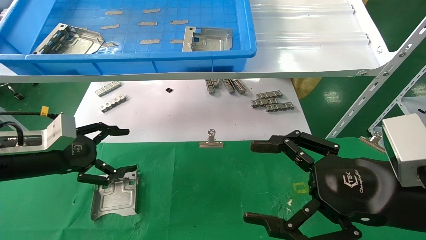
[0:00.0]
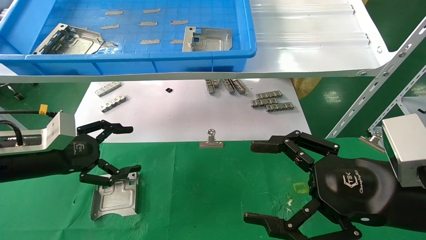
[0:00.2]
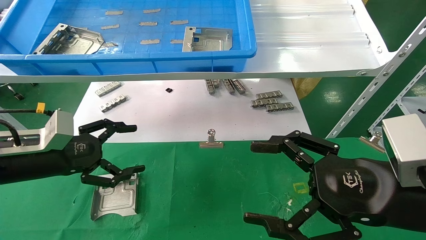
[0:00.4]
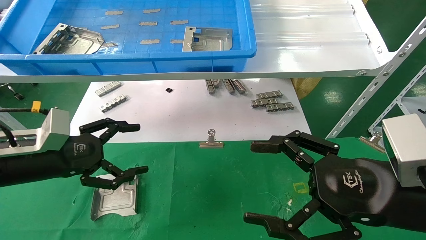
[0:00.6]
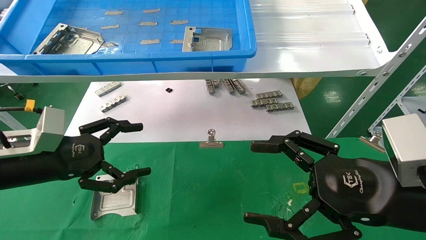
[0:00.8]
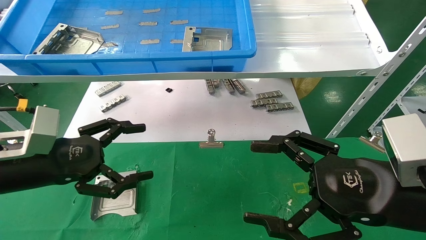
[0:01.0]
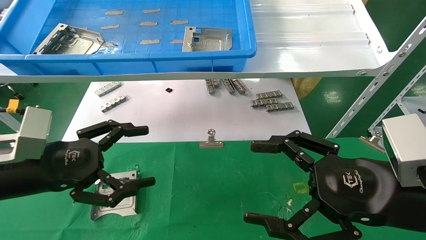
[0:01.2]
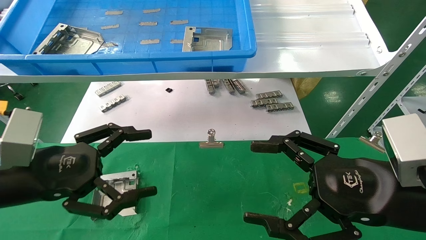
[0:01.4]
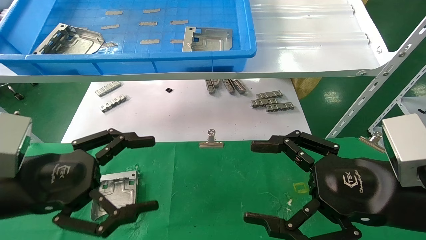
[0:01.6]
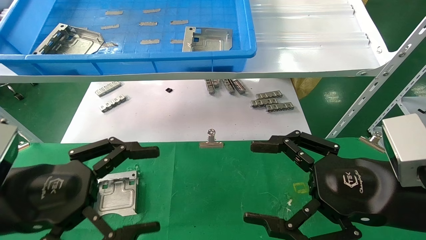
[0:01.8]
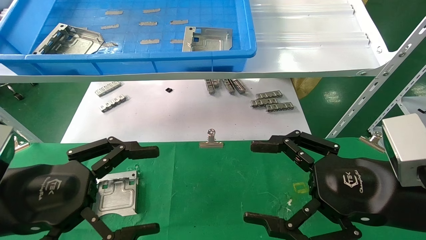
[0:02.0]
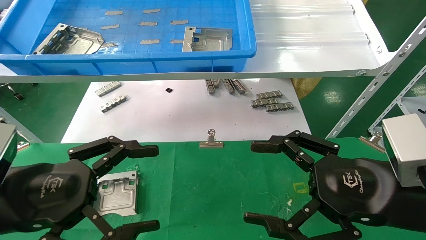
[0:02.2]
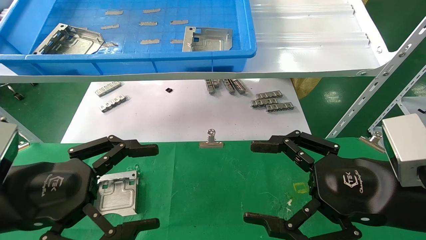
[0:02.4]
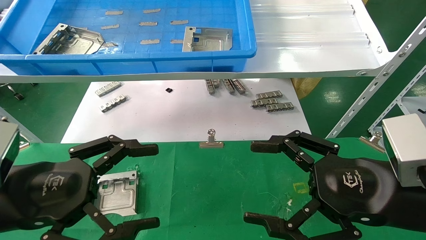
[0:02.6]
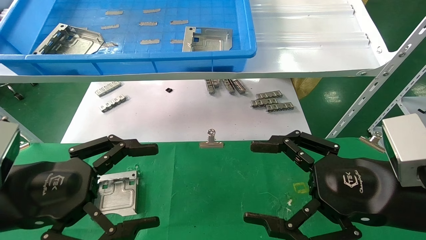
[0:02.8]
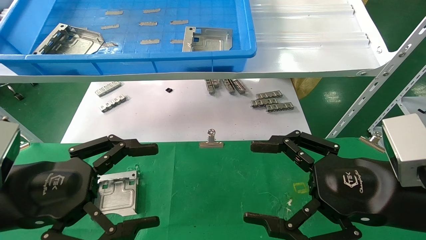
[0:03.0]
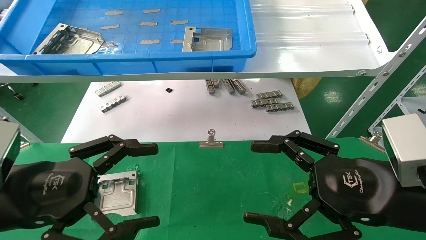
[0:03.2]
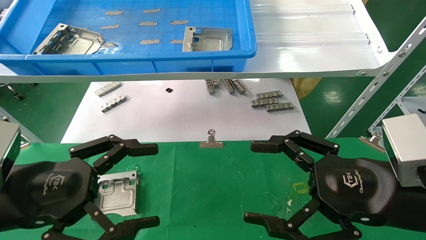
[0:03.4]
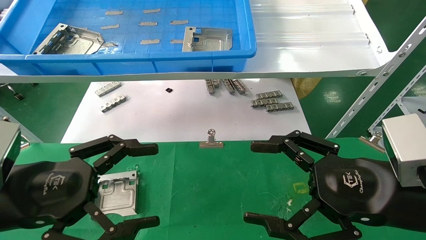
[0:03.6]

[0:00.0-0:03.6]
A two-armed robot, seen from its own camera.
Task of the whole recording: use the mechanical arm to pick up the parts and place them on the table.
0:00.0 to 0:01.8: The left gripper is displaced backward and to the right by approximately 15 cm.
0:01.8 to 0:03.6: Both grippers stay put.
